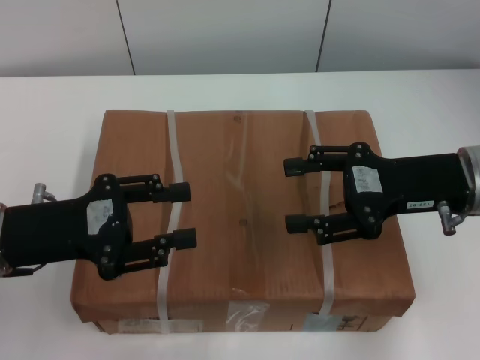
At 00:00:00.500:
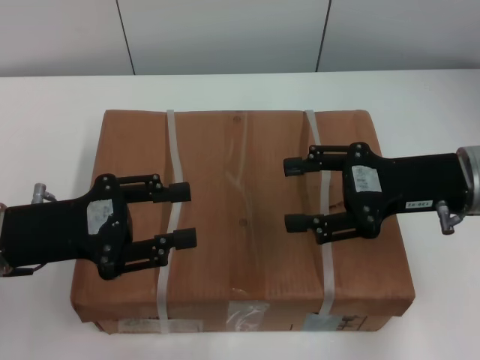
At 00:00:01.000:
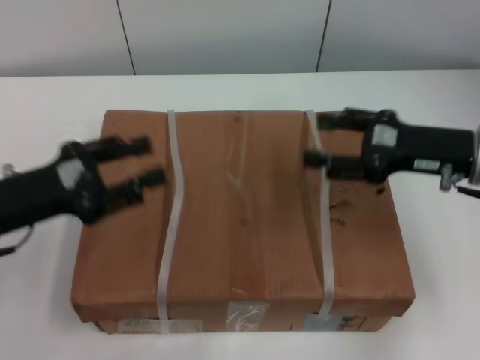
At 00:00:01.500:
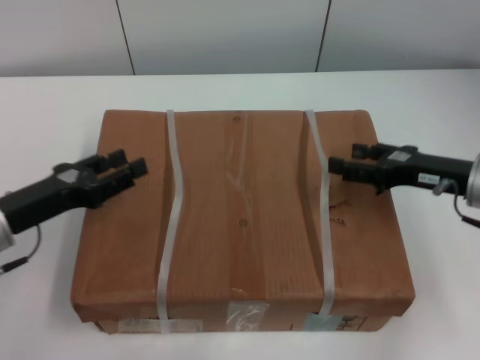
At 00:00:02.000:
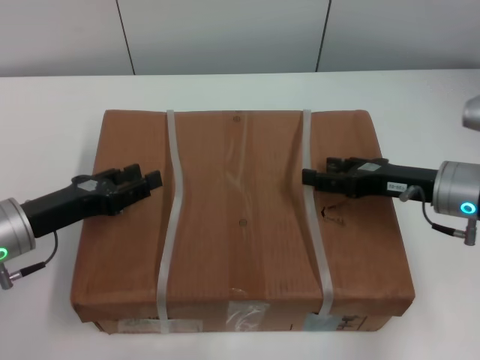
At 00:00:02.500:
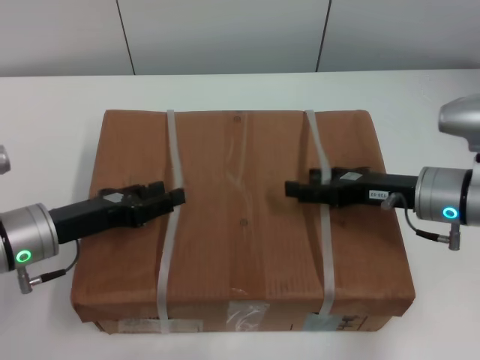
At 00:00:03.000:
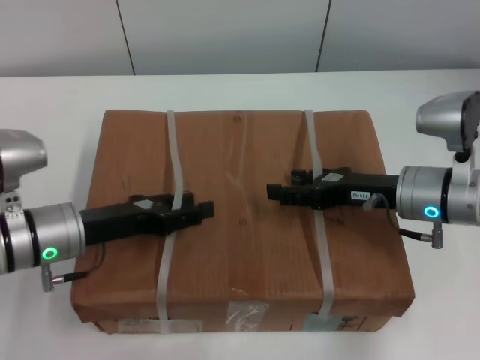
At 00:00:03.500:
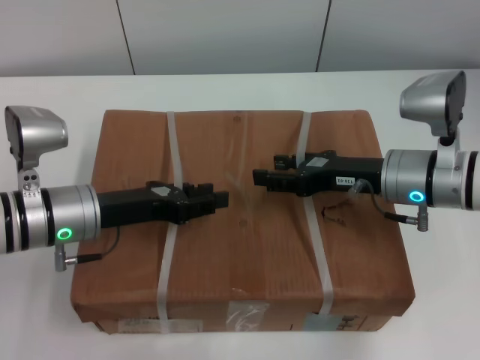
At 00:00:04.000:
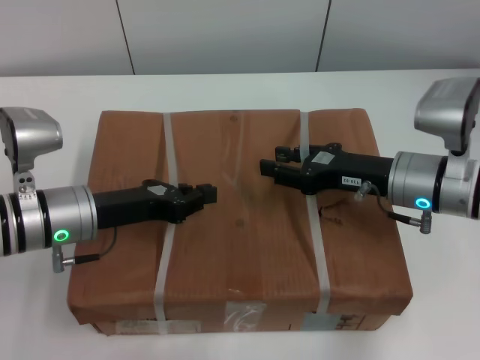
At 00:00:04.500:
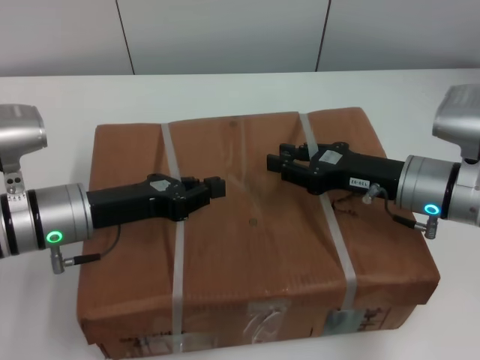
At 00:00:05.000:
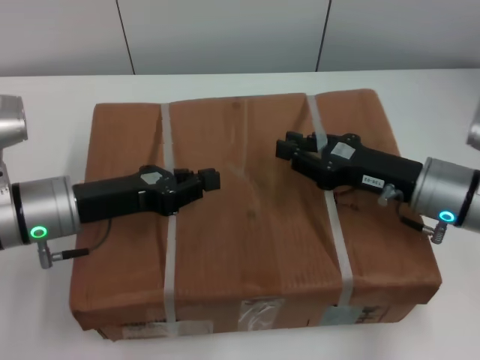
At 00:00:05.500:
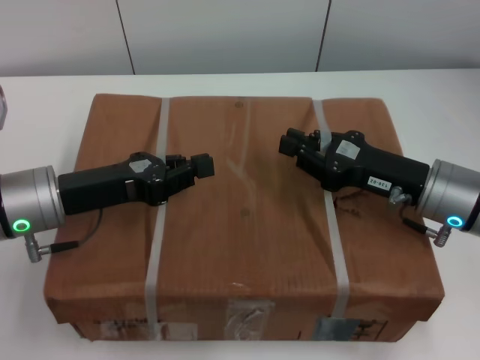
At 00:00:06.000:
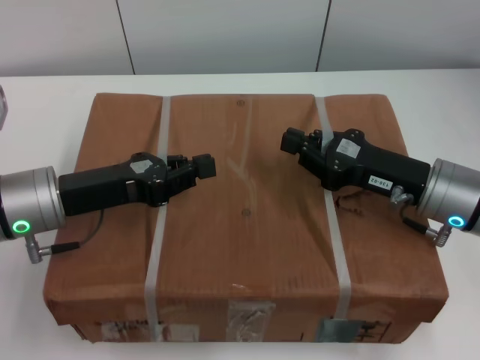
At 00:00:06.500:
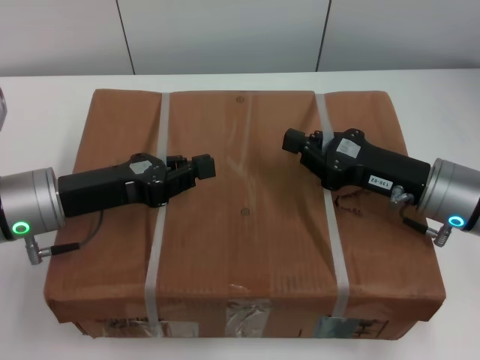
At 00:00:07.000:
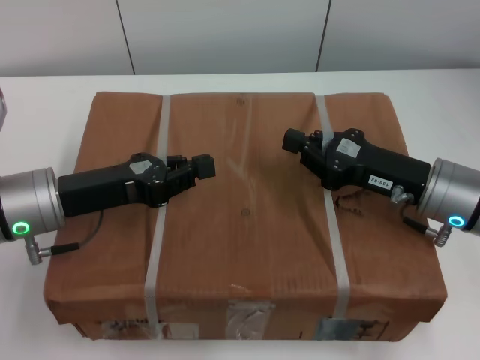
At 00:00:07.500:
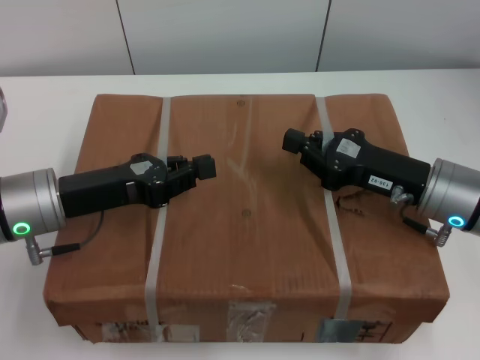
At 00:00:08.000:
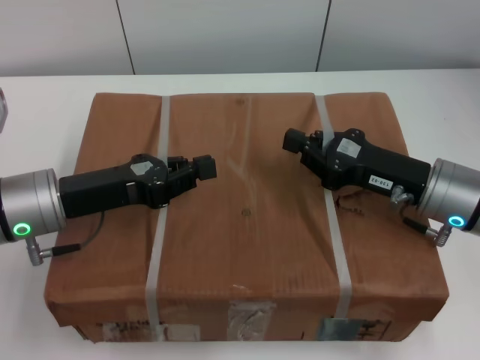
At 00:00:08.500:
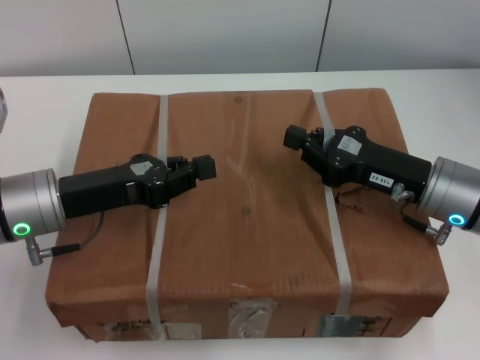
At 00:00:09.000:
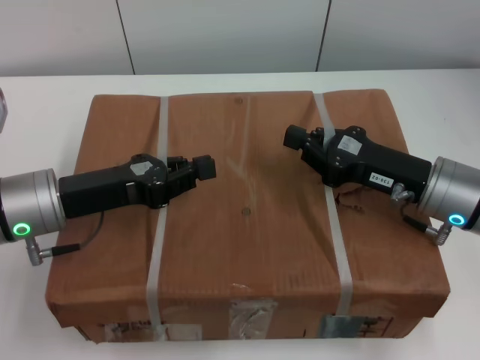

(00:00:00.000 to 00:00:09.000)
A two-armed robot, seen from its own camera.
Task of the whole recording: pick up the box from the table with both arms.
Step, 00:00:00.500 - 00:00:03.500: Grasp the bandage with left gripper.
Step, 00:00:00.500 - 00:00:03.500: Grasp the bandage with right gripper.
Step, 00:00:04.000 - 00:00:05.500: Lift the box with left gripper.
Step, 00:00:04.000 - 00:00:05.500: Lift the box with right gripper.
00:00:00.000 - 00:00:02.000: The grippers both shift downward by some 5 cm.
00:00:02.000 - 00:00:04.500: The left gripper heads to the right, covering roughly 5 cm, and closes; the right gripper closes.
00:00:04.500 - 00:00:07.000: The right gripper closes.
00:00:07.000 - 00:00:09.000: Both grippers stay put.
